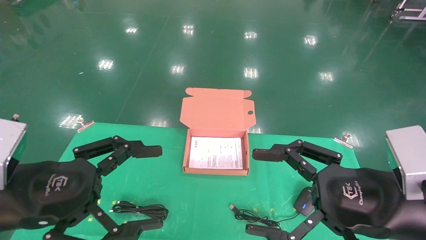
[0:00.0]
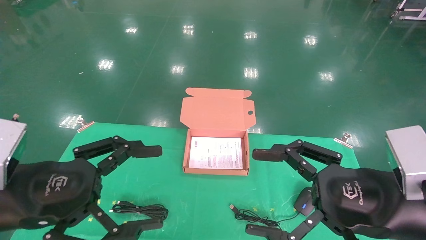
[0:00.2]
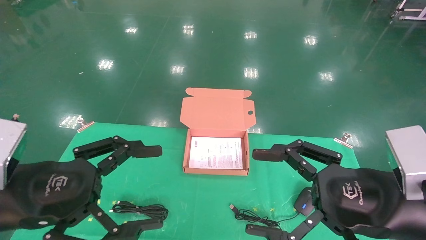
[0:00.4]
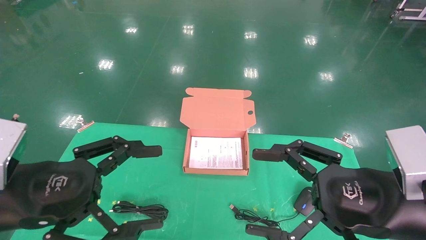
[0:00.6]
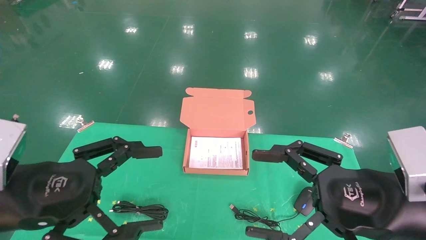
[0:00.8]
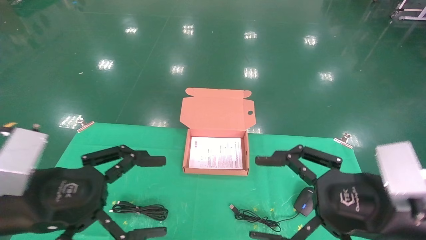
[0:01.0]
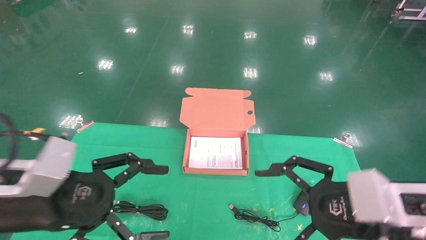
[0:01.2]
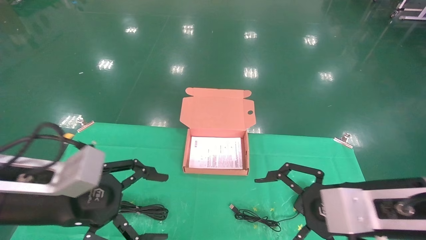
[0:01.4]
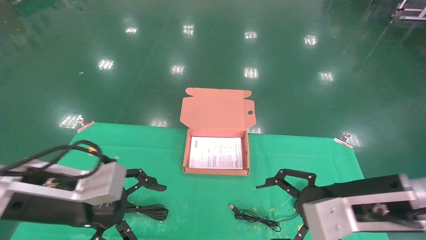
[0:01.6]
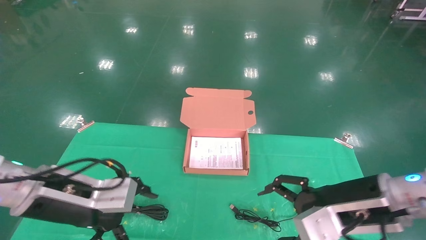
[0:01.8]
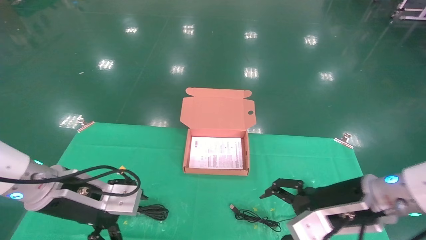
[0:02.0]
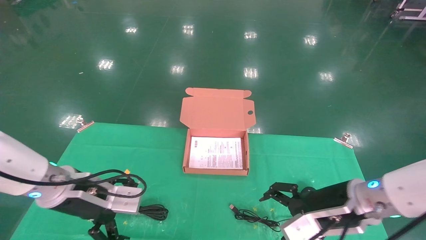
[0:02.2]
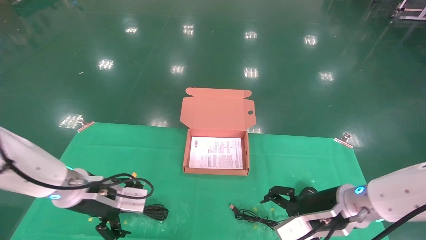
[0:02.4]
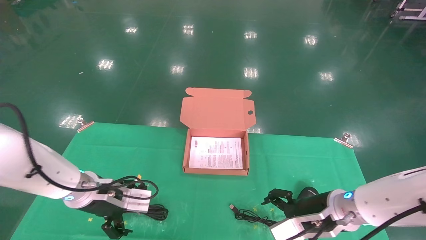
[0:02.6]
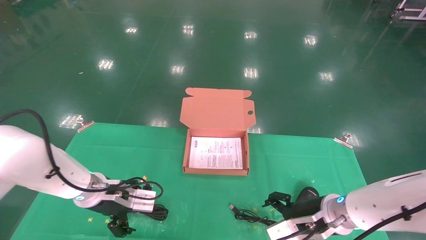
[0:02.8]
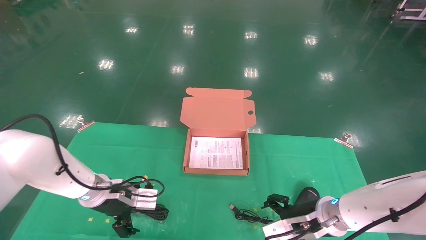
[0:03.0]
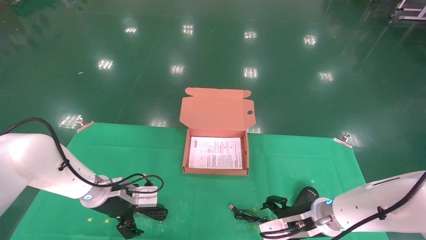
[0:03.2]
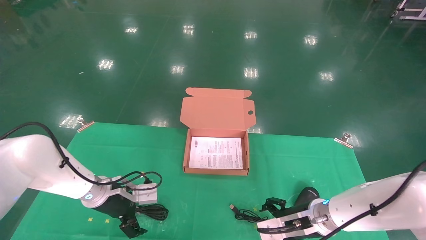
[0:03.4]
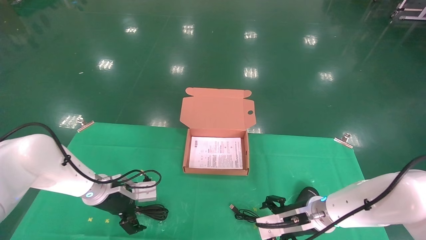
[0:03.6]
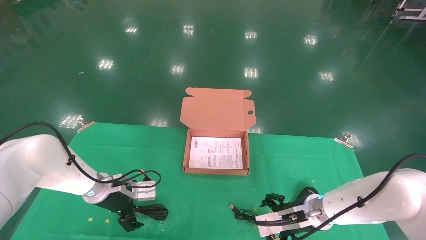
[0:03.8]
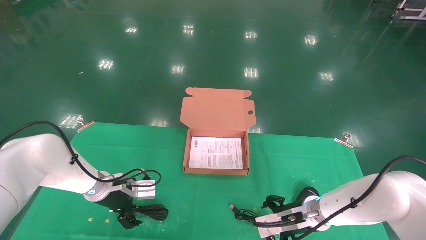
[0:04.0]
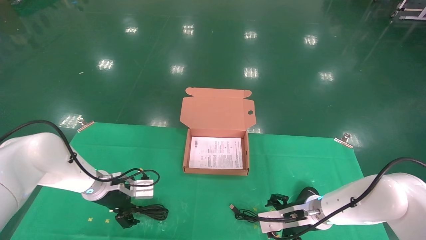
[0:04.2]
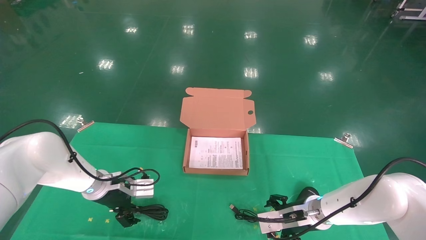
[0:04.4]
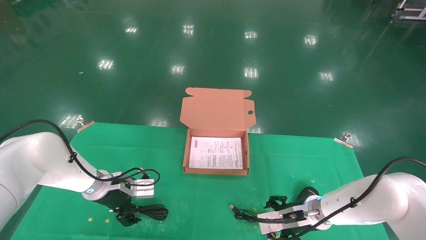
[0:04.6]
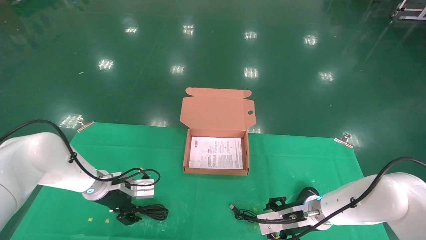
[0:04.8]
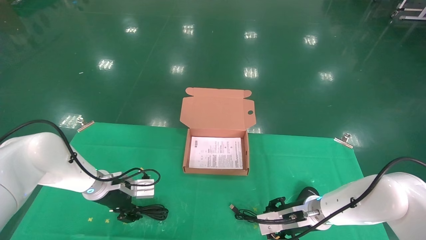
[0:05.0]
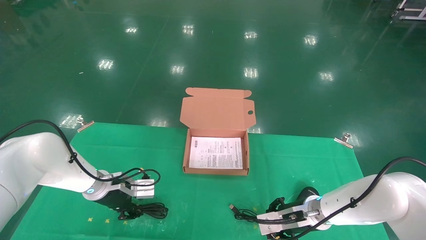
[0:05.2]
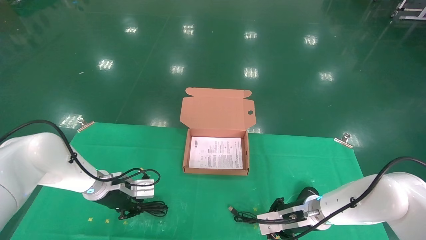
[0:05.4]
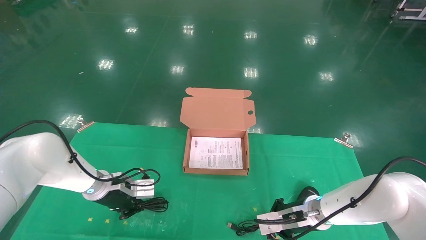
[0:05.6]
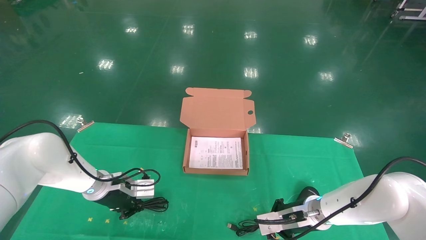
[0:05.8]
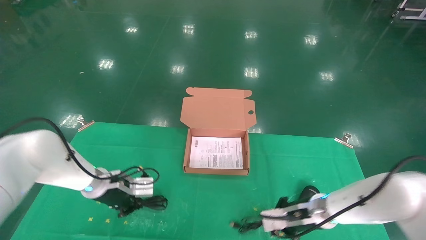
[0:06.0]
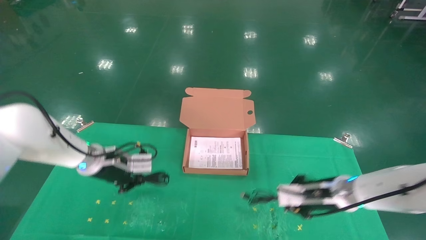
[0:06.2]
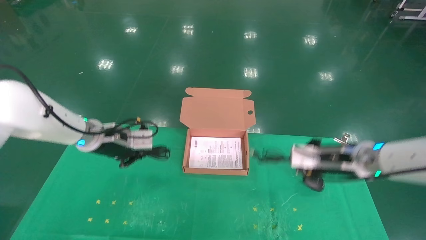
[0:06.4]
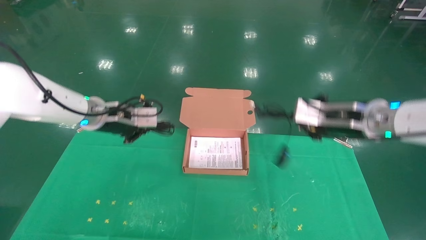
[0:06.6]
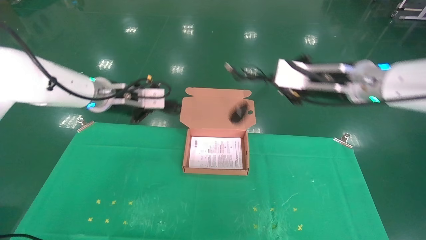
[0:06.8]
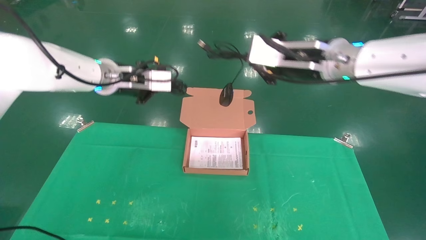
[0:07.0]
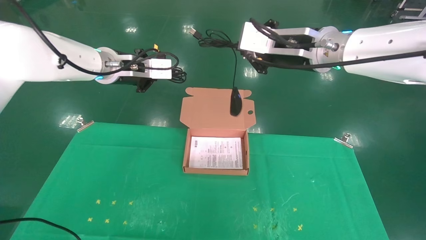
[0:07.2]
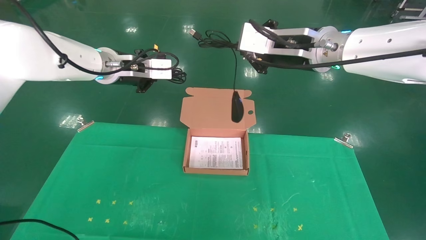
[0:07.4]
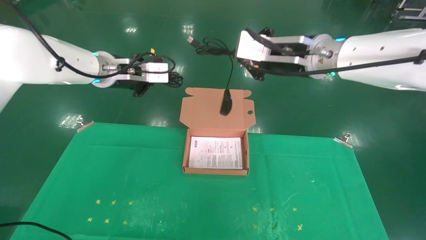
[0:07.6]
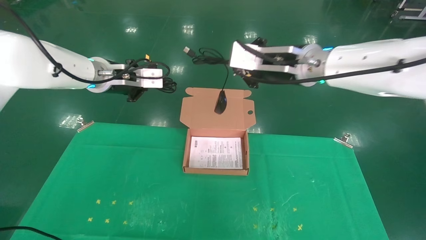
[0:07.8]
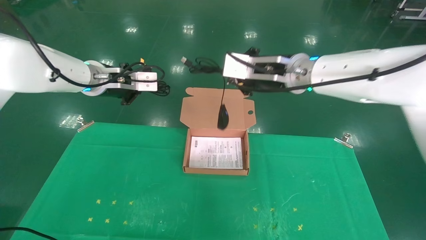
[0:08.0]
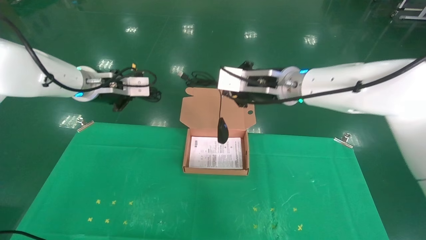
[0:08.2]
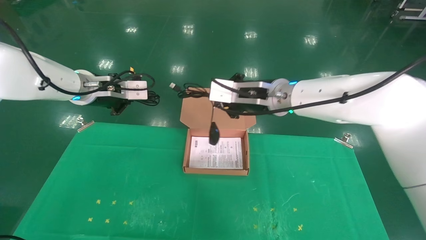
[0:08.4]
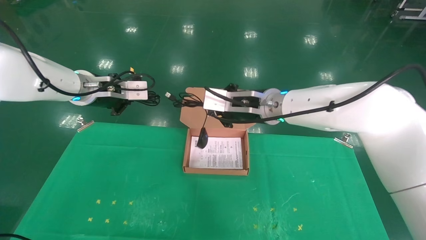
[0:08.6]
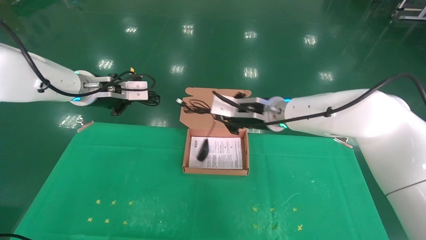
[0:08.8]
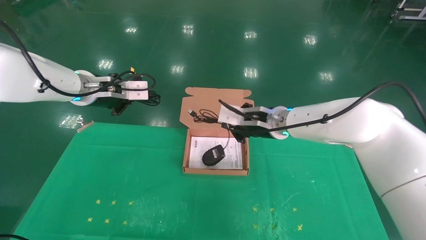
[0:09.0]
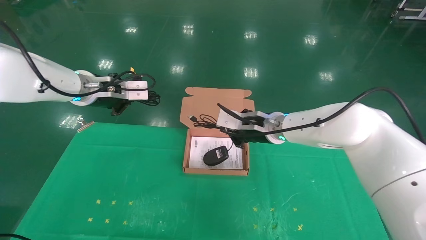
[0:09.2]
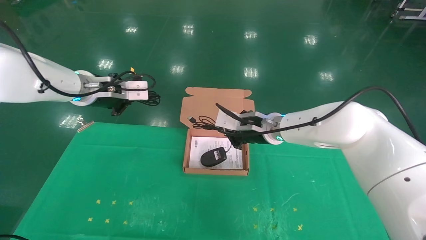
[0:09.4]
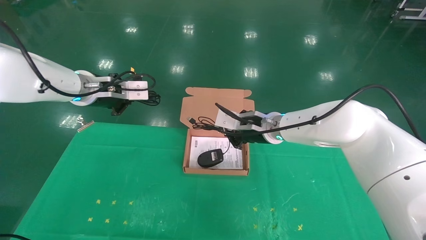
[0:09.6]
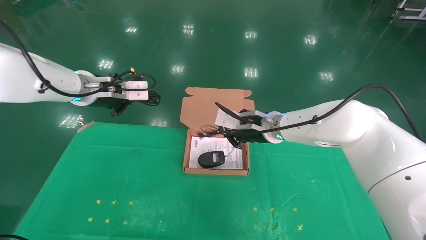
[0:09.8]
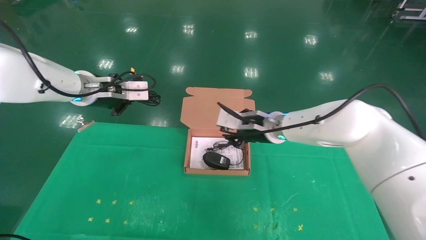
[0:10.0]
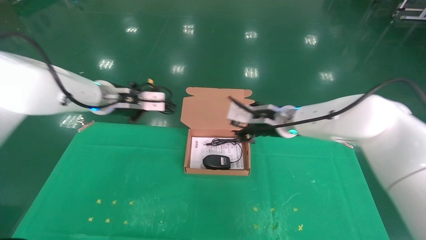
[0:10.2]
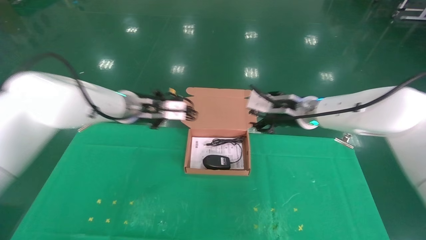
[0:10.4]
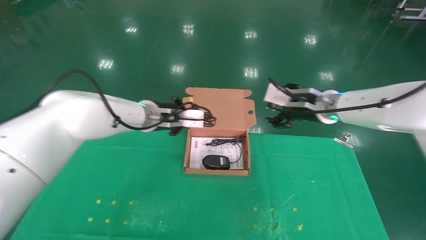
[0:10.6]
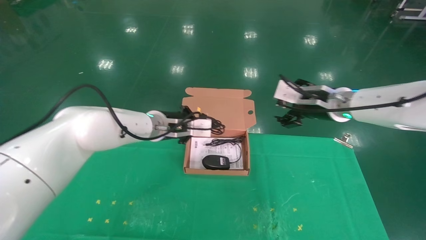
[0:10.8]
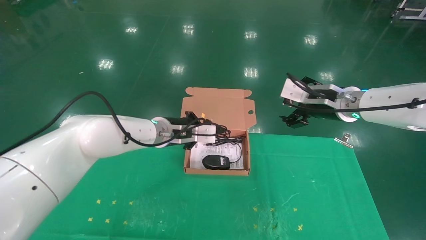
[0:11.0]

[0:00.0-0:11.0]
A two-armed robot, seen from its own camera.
Task of the whole recording: grasp data cable left put into box grasp mouse right put into box.
Step, 0:00.8 to 0:06.4: Grab and pick up both the mouse and power cord from the accessory packaging area at the same time.
0:00.0 to 0:01.6: Both grippers travel together forward, approximately 5 cm.
0:01.6 to 0:03.2: The left gripper is displaced forward and downward by about 20 cm, while the right gripper travels downward and forward by roughly 15 cm.
0:03.2 to 0:04.8: The right gripper moves roughly 5 cm.
0:04.8 to 0:06.2: The two grippers go some 10 cm upward. The left gripper closes its fingers. The right gripper closes up.
0:06.2 to 0:07.8: The right gripper goes about 25 cm upward and to the left, while the left gripper travels upward by approximately 20 cm.
0:07.8 to 0:09.4: The right gripper moves downward and forward, some 15 cm.
0:09.4 to 0:11.0: The right gripper heads to the right and upward, covering some 15 cm, and opens. The left gripper goes some 20 cm to the right and downward.

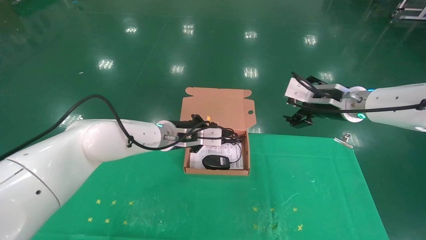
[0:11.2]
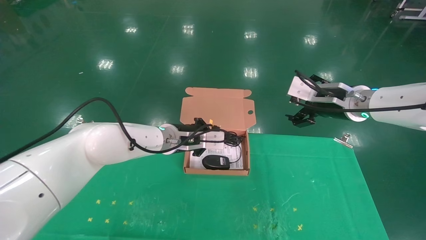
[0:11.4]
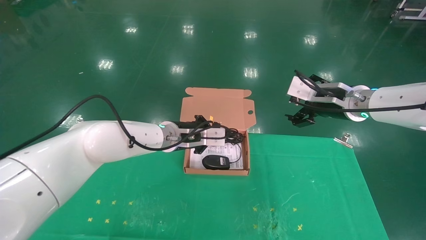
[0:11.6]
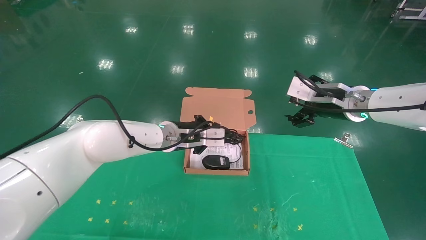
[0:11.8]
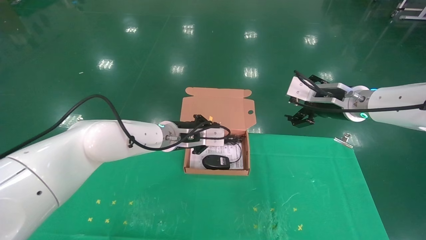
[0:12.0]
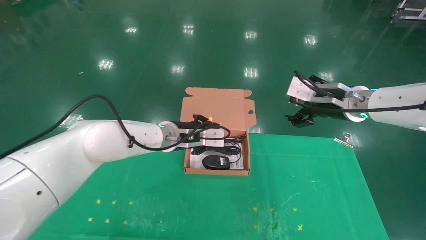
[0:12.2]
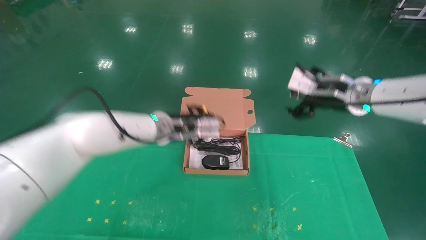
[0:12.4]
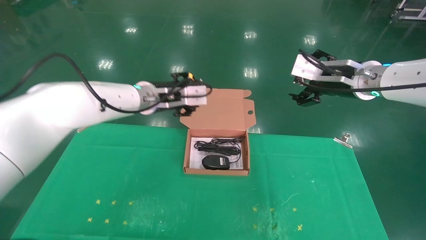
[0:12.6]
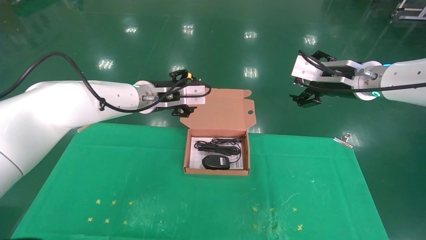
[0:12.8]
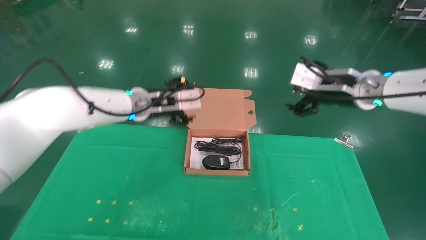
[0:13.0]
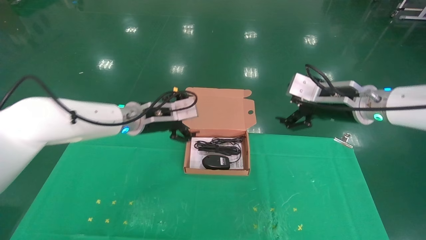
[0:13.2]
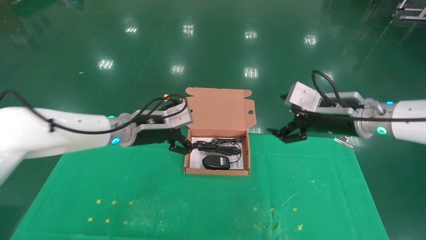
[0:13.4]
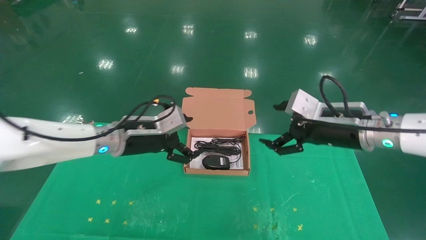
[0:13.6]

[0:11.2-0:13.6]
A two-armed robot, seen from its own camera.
Task of the whole recording: grasp data cable left put into box grasp mouse right put into box.
0:11.2 to 0:12.4: The left gripper opens its fingers.
0:12.4 to 0:13.6: The left gripper heads to the left and backward, covering roughly 10 cm, and opens. Meanwhile the right gripper shifts approximately 10 cm backward and downward.
